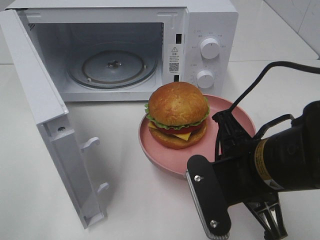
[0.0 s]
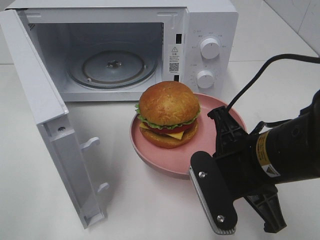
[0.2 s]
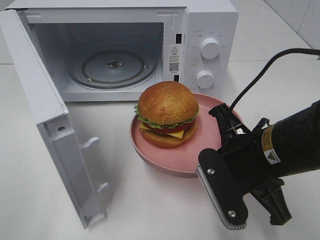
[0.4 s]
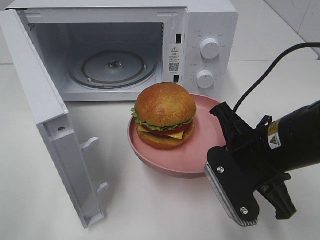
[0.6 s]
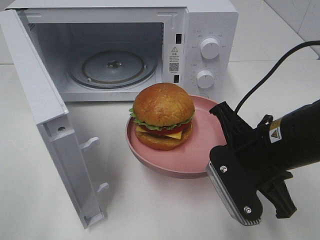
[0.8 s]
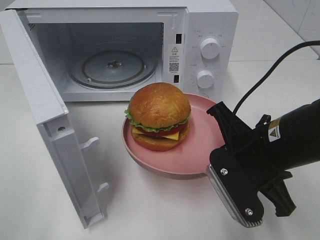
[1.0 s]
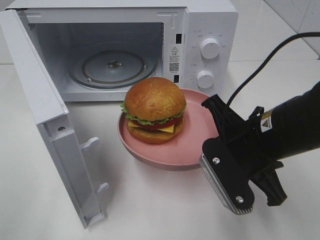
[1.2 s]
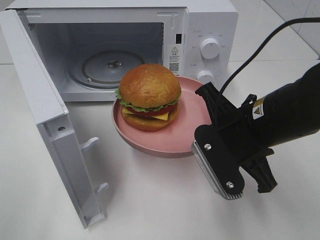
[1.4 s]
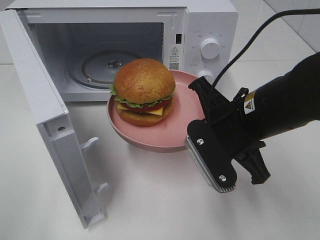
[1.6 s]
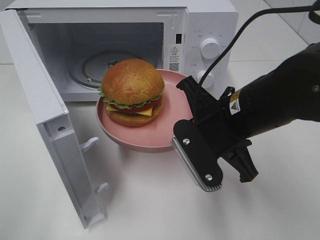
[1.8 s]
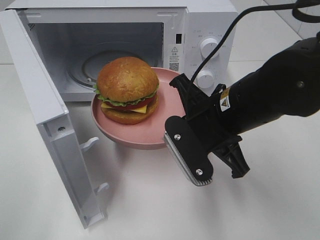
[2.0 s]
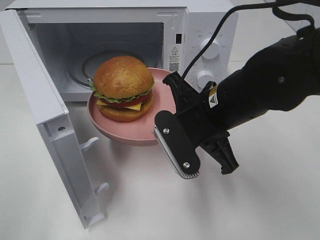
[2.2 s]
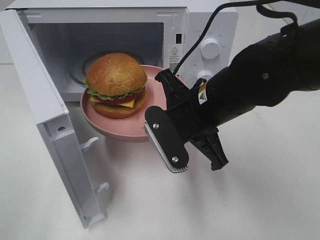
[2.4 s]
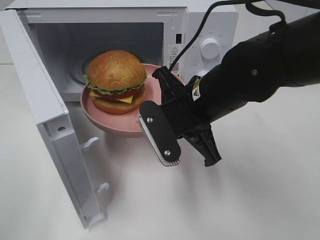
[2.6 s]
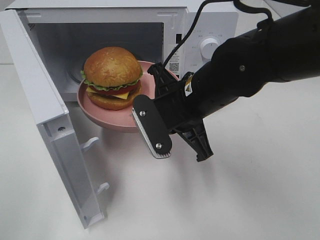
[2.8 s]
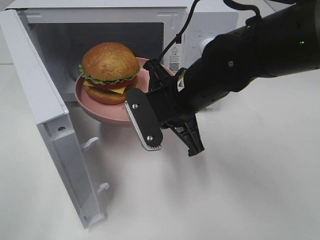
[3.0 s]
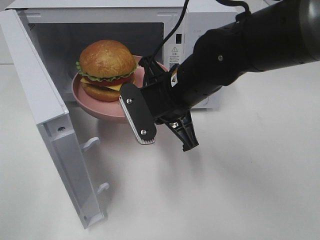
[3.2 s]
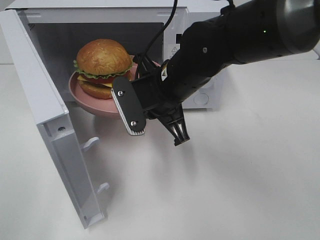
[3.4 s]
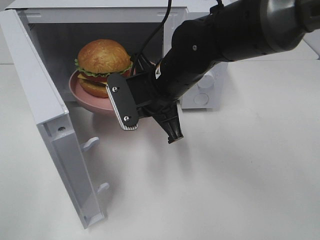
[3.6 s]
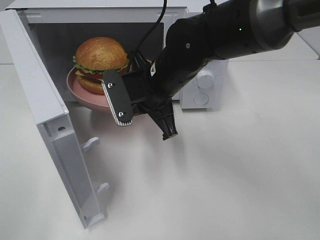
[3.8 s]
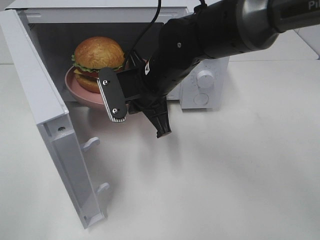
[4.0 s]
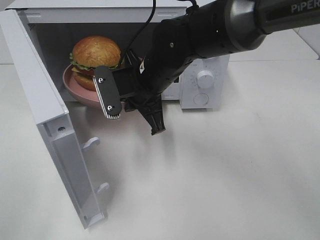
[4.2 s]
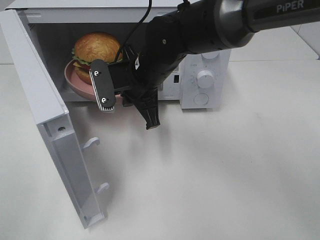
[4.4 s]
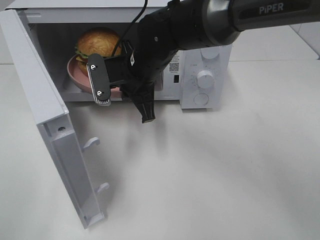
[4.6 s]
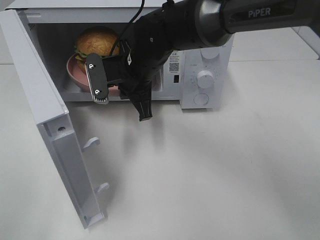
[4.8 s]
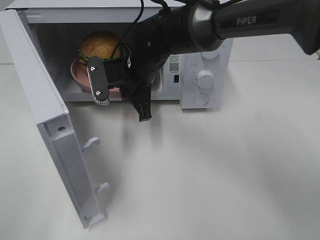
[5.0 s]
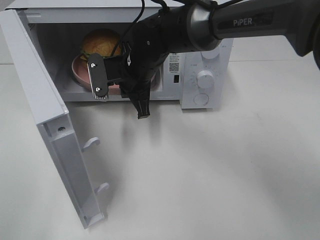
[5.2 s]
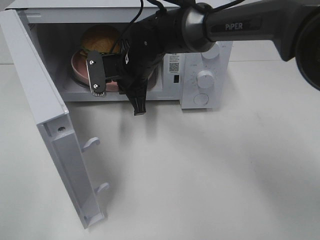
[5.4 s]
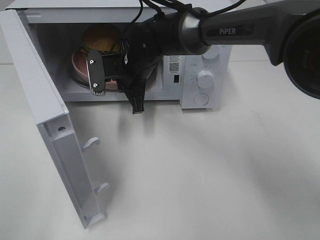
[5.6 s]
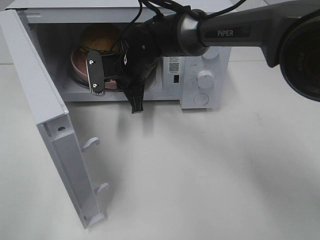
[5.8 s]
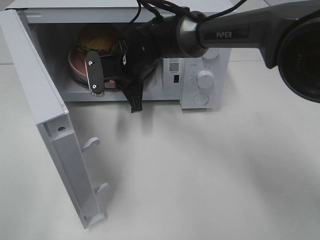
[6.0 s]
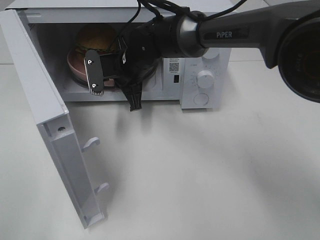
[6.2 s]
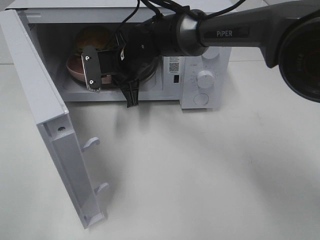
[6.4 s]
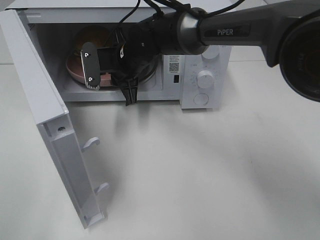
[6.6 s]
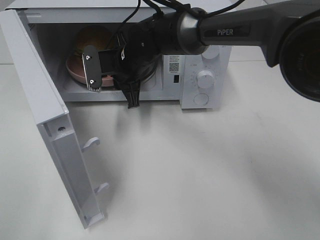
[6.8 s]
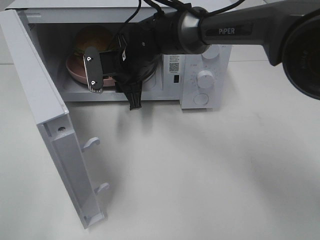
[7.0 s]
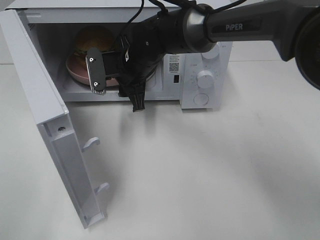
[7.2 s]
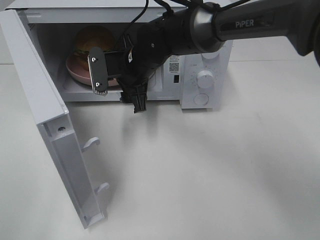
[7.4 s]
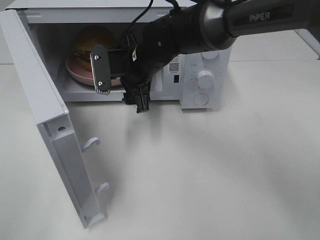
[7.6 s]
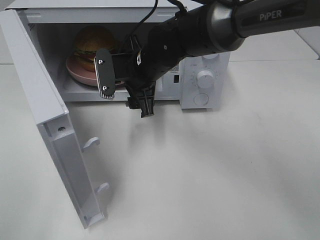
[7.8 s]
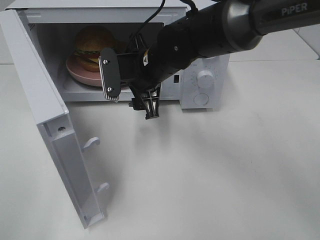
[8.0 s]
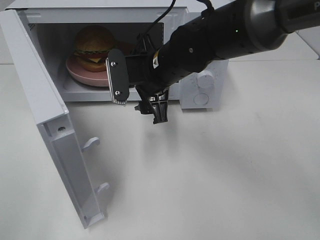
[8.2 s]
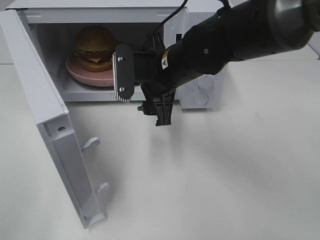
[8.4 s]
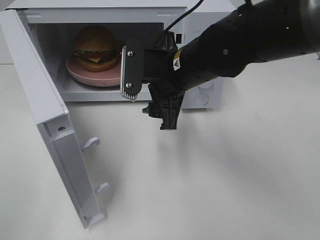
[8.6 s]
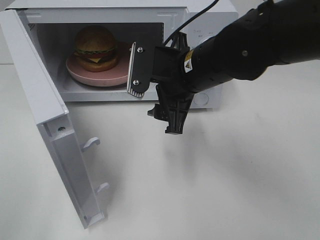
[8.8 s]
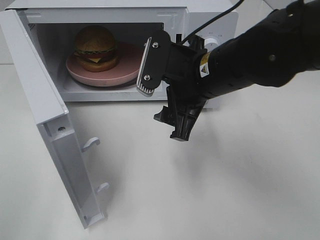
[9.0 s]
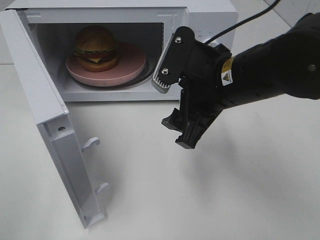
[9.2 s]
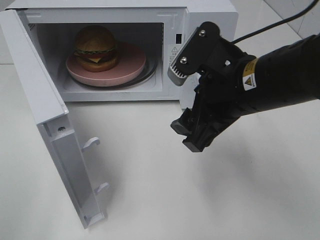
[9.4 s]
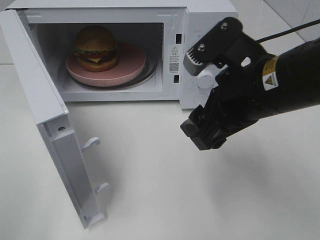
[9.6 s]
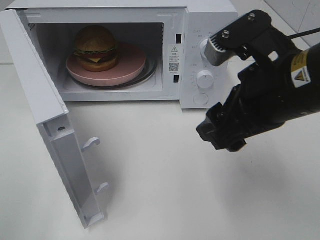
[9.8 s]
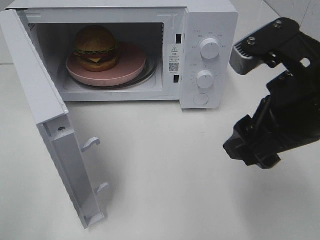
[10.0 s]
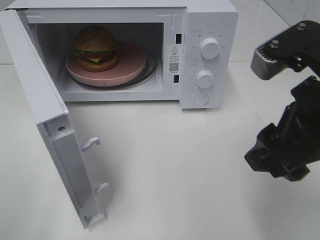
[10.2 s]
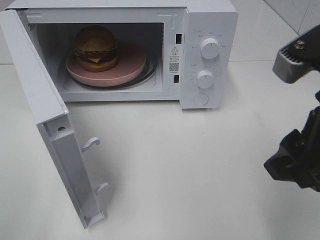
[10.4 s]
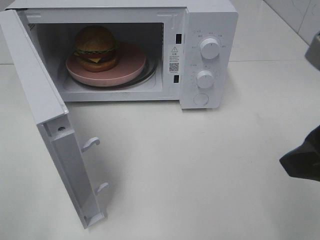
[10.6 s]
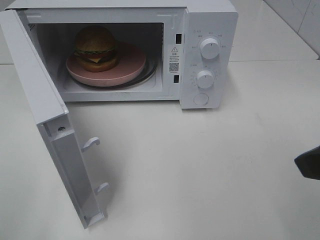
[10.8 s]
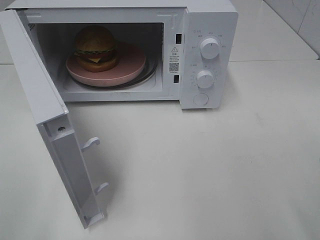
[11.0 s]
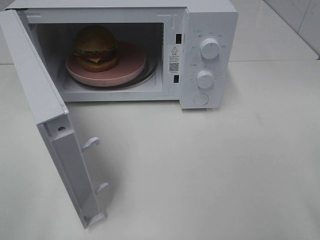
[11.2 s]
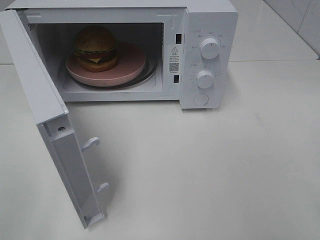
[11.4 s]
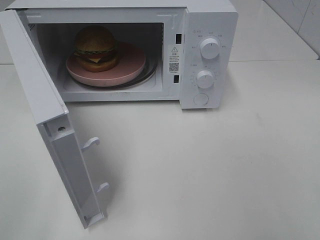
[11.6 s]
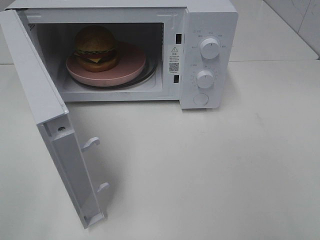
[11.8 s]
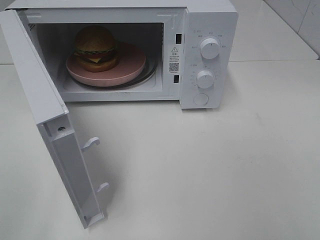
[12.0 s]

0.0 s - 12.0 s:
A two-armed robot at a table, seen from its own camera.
Task of the whole recording: Heat the burger.
Step, 0.0 s - 7.4 s: Right hand: place the plate in the microwave.
0.0 s - 1.6 s: The right gripper is displaced forward by about 5 cm.
1.6 s - 3.0 s: The right gripper moves to the left and forward, approximately 10 cm.
3.0 s - 4.4 s: The right gripper is displaced forward and to the left by roughly 10 cm.
4.4 s - 6.0 s: The right gripper moves forward, about 5 cm.
6.0 s - 7.6 s: The right gripper opens up.
7.6 s - 9.0 s: The right gripper goes some 15 cm backward, to the right and upward.
9.0 s - 10.4 s: The right gripper shifts some 20 cm backward, to the right and upward.
10.4 s - 12.0 s: The right gripper moves backward and to the right, about 15 cm.

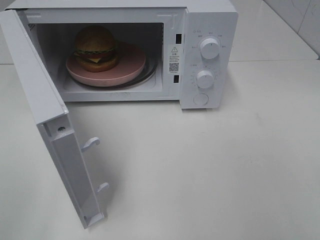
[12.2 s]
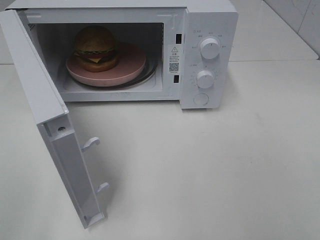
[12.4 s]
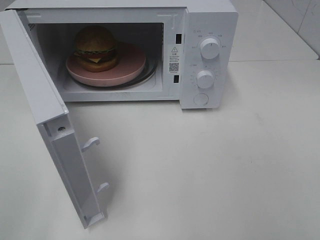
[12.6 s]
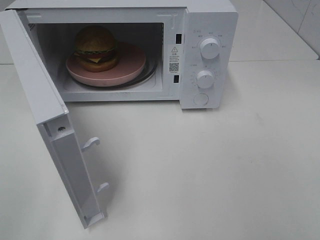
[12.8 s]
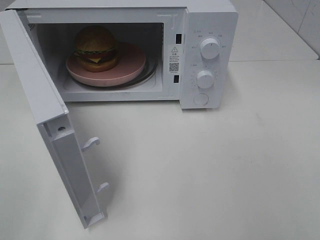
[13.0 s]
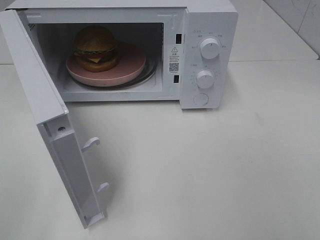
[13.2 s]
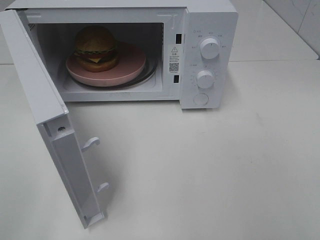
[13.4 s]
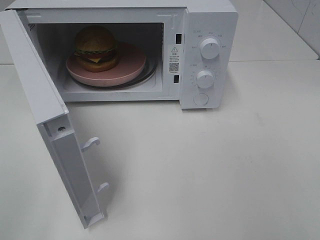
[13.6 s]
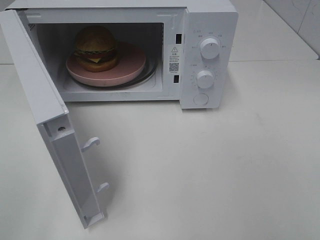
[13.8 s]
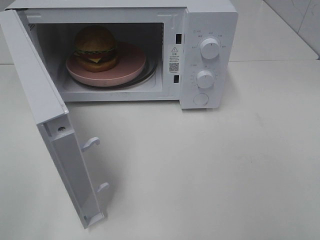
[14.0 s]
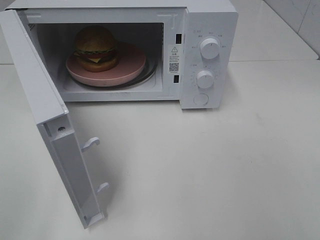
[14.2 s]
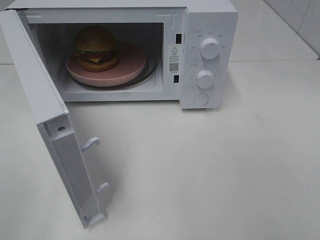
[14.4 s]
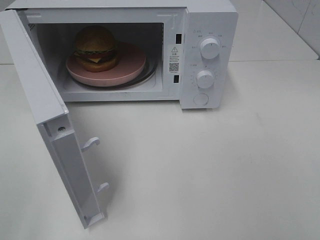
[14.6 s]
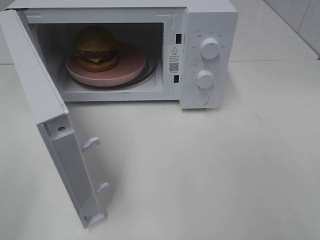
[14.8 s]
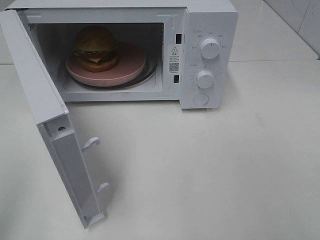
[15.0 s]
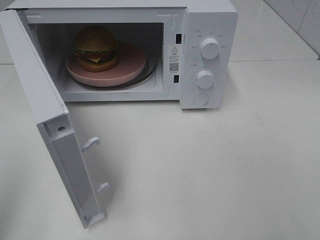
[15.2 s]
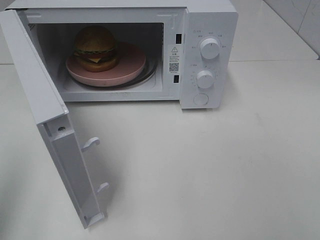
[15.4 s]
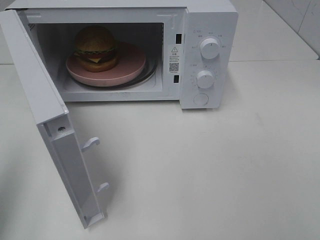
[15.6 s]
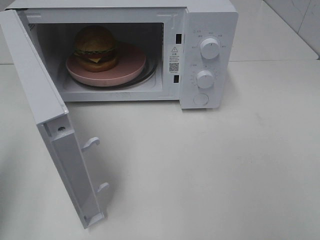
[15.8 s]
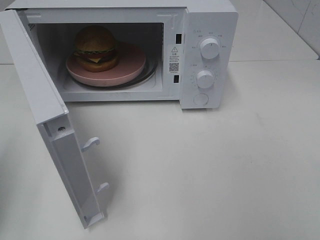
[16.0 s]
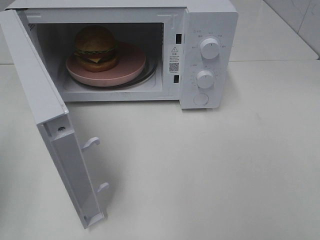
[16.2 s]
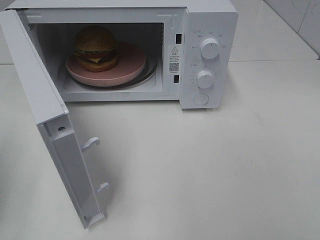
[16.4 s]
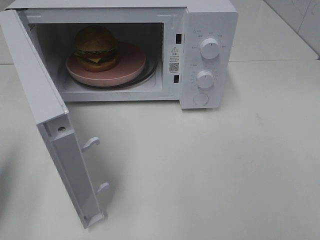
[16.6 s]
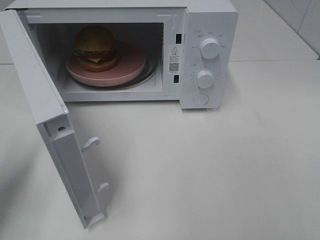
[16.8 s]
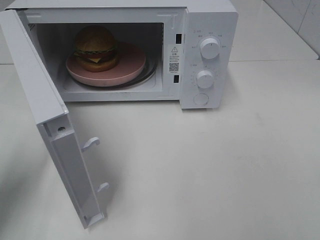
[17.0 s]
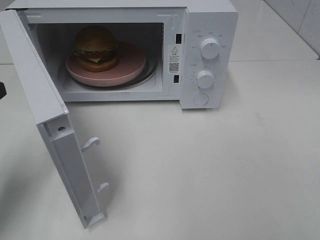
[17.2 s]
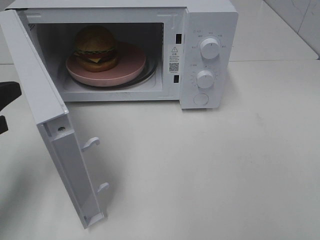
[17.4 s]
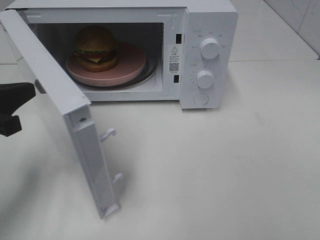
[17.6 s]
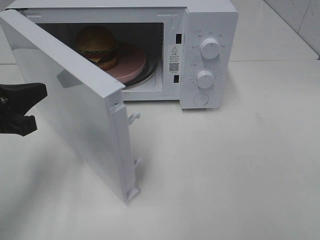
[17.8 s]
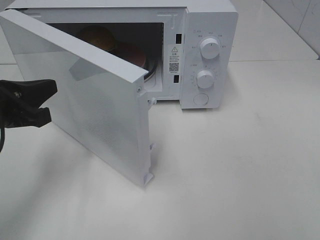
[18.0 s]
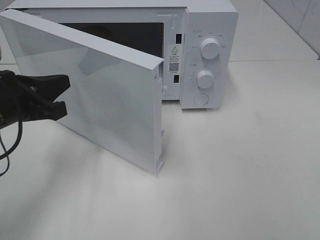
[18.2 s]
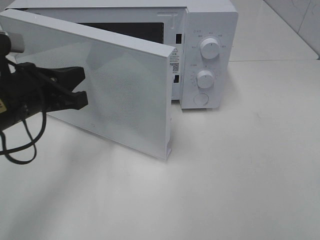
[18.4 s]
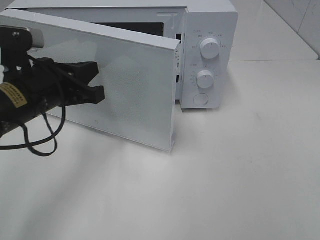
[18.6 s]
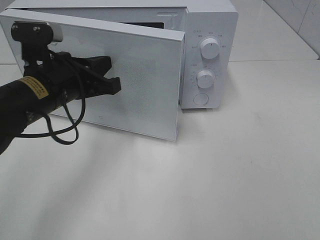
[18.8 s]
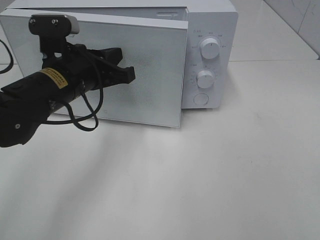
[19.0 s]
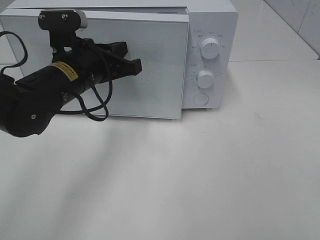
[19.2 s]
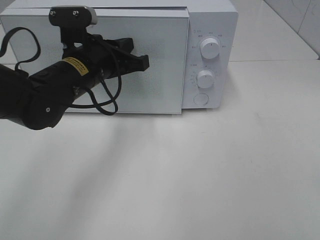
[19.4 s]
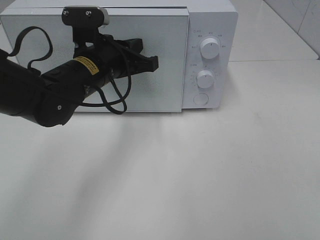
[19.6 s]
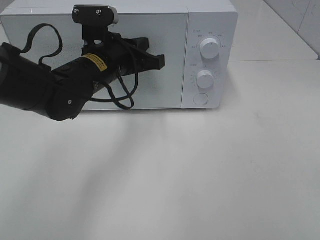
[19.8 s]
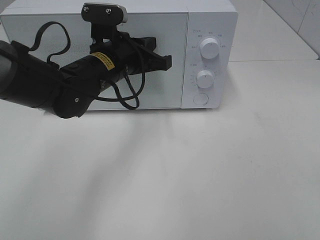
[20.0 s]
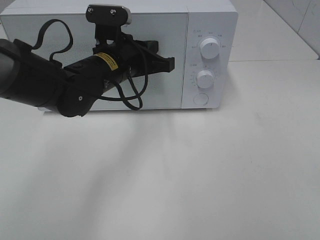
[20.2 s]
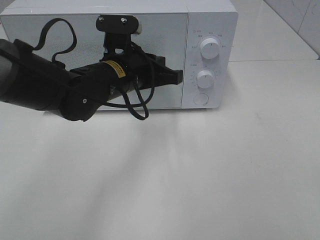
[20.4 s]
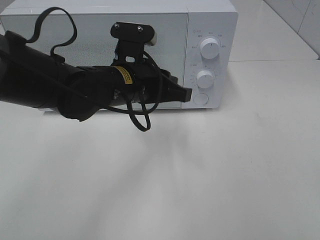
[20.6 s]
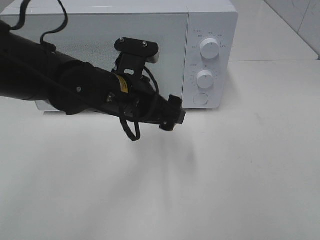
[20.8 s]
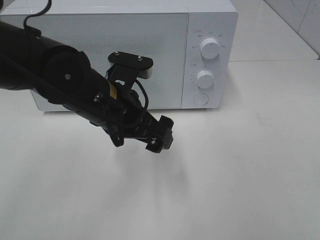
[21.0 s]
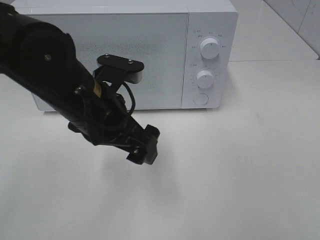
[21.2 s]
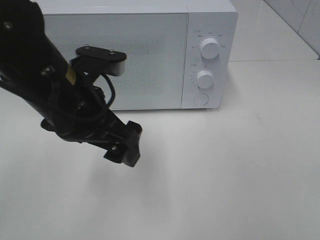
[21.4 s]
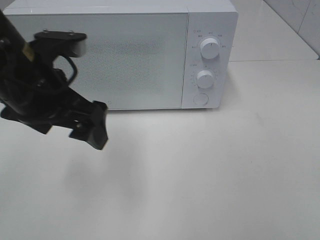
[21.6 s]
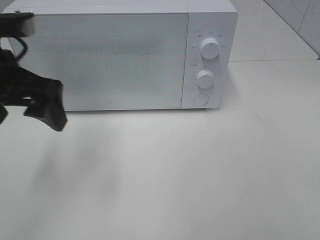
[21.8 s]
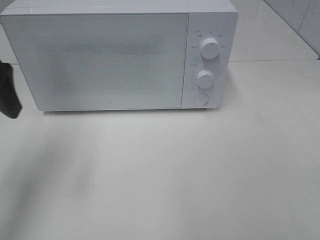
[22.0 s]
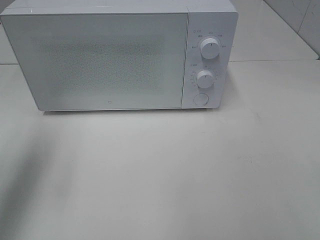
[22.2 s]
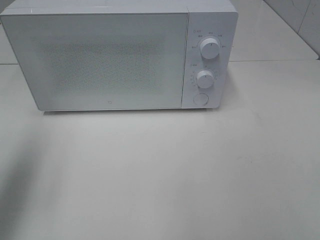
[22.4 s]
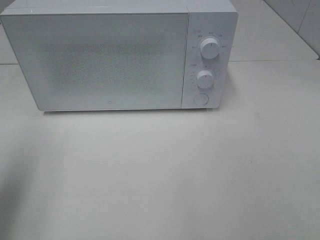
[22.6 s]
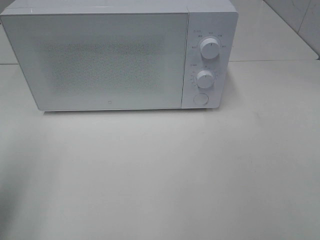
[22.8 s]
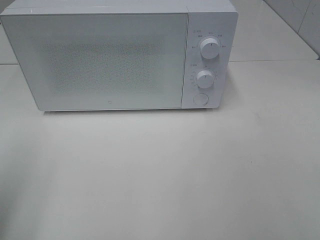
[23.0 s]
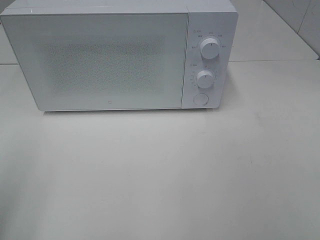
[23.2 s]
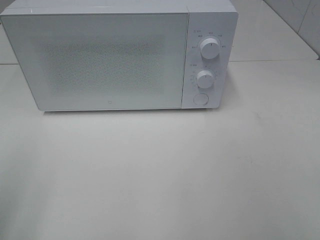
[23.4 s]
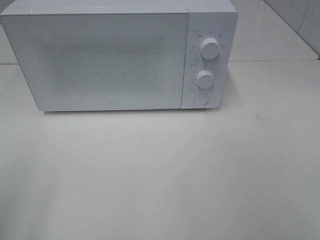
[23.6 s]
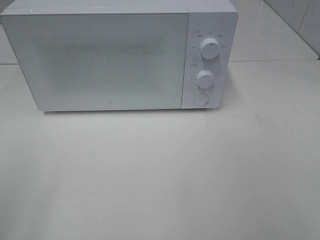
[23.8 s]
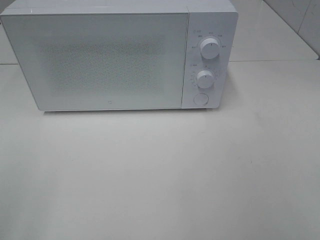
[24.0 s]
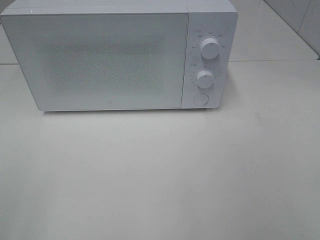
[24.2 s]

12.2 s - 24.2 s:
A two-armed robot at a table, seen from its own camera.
Task of the whole recording: Heat the burger.
Step, 12.2 s - 20.4 s: Left hand: close the microwave door.
12.2 s - 13.8 s: Both grippers stay about where they are.
15.2 s - 16.6 s: The left gripper heads forward and downward, covering approximately 15 cm.
16.6 s - 18.2 s: The left gripper moves to the right and forward, approximately 15 cm.
18.2 s - 19.8 s: The left gripper is displaced to the right and forward by about 15 cm.
19.8 s - 21.2 s: The left gripper moves backward, roughly 10 cm, and opens up.
21.2 s - 22.6 s: The left gripper travels to the left and upward by approximately 25 cm.
22.6 s - 24.2 s: The left gripper shifts about 15 cm backward.
